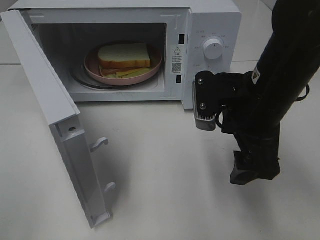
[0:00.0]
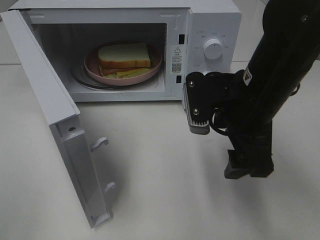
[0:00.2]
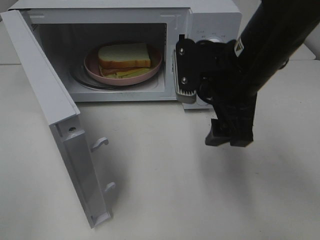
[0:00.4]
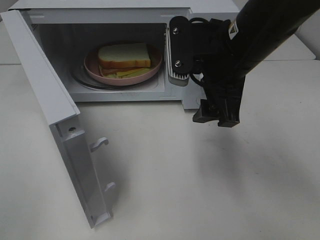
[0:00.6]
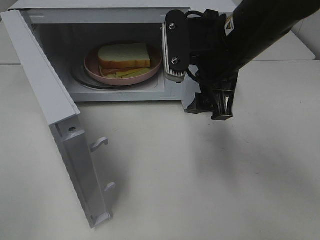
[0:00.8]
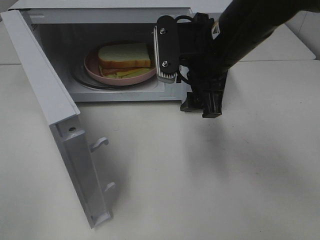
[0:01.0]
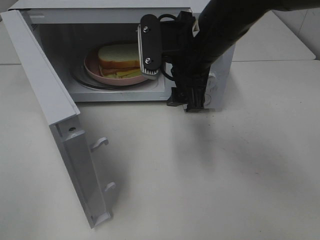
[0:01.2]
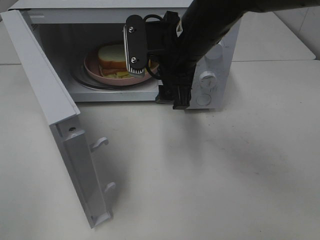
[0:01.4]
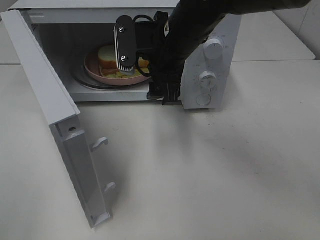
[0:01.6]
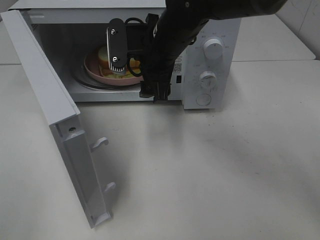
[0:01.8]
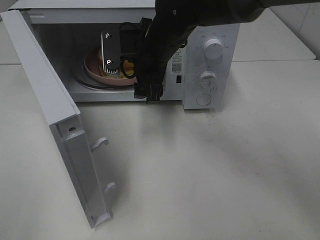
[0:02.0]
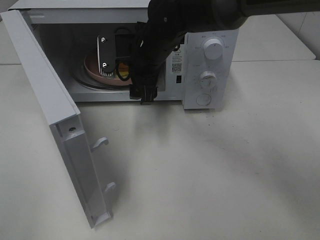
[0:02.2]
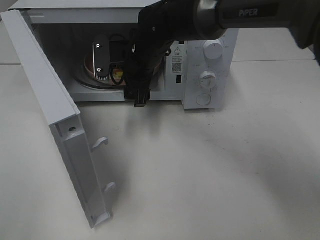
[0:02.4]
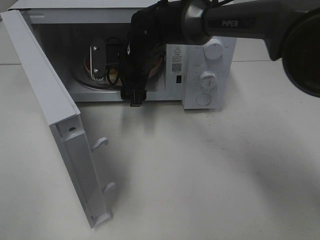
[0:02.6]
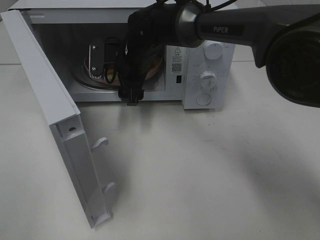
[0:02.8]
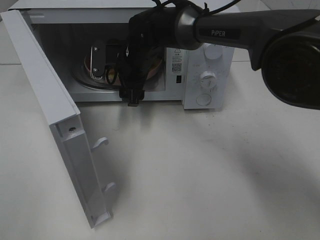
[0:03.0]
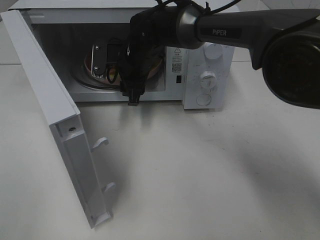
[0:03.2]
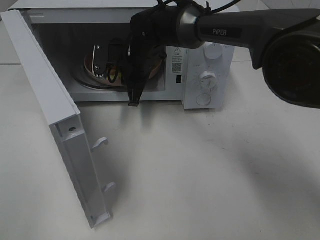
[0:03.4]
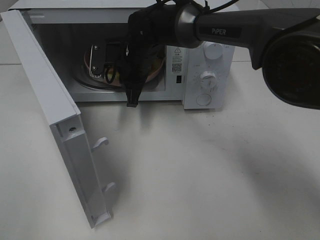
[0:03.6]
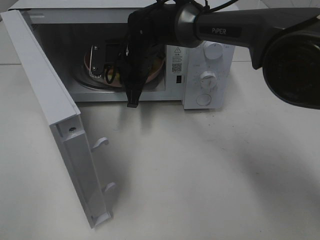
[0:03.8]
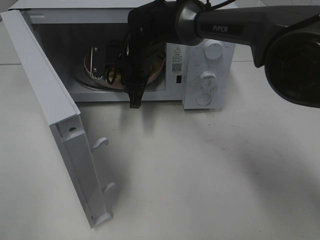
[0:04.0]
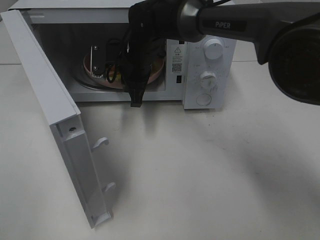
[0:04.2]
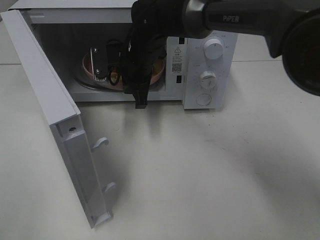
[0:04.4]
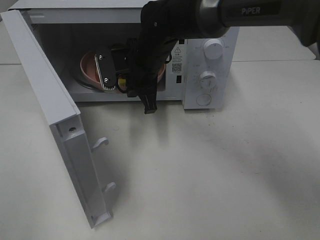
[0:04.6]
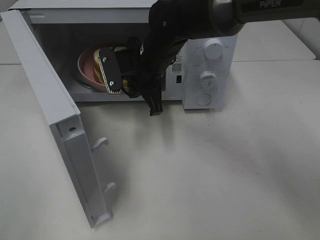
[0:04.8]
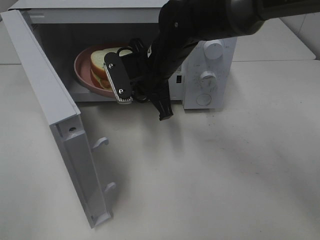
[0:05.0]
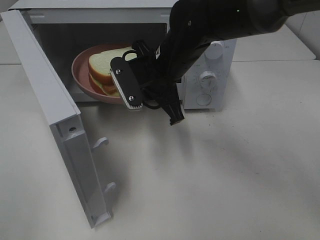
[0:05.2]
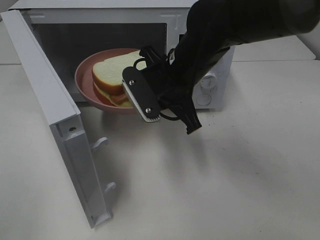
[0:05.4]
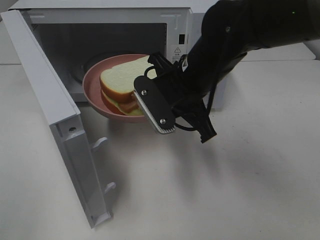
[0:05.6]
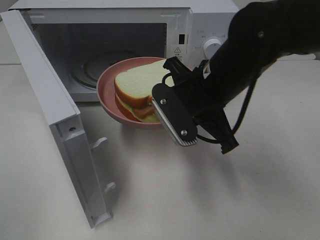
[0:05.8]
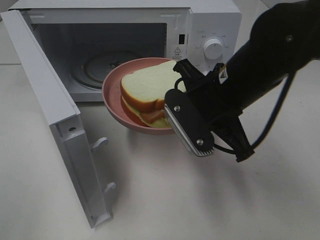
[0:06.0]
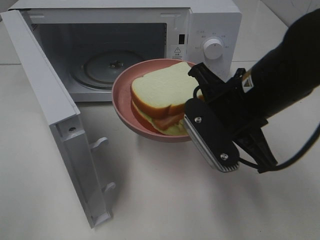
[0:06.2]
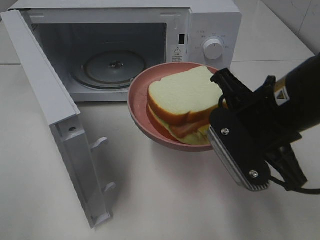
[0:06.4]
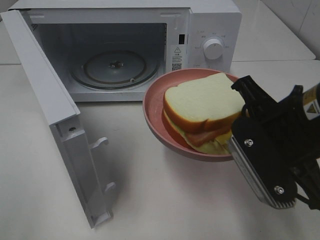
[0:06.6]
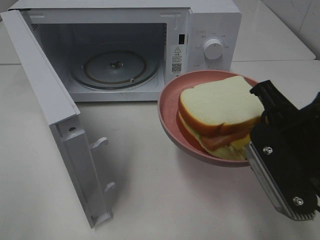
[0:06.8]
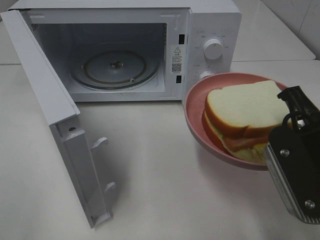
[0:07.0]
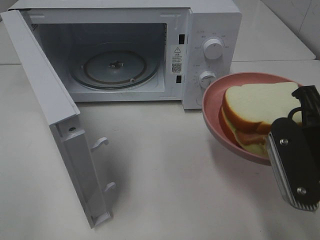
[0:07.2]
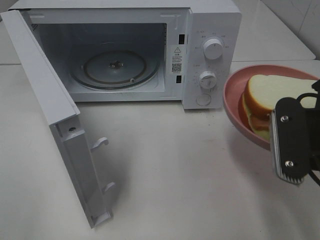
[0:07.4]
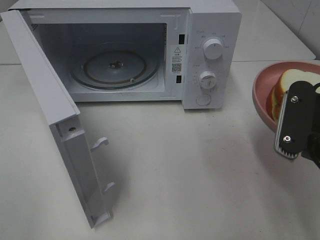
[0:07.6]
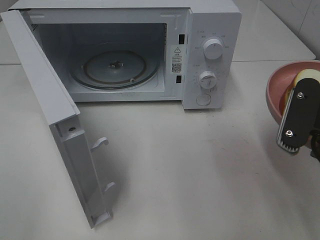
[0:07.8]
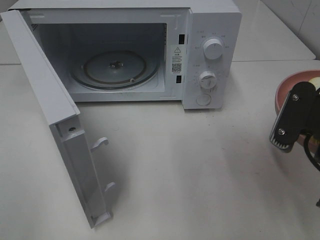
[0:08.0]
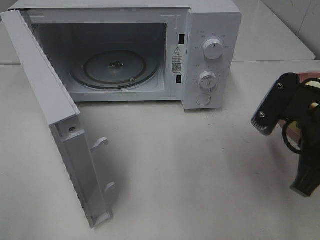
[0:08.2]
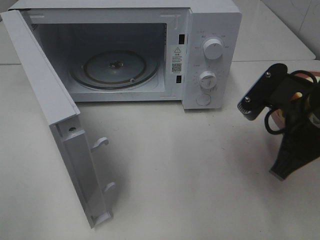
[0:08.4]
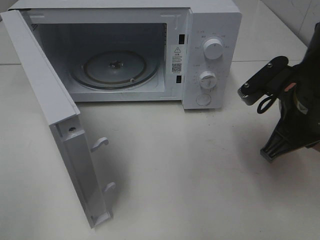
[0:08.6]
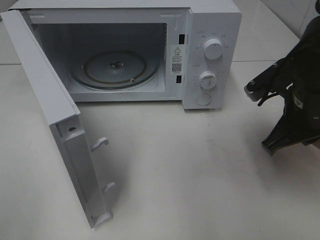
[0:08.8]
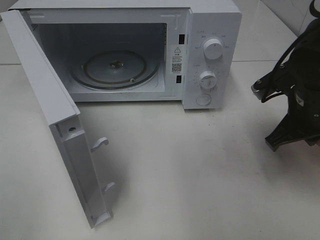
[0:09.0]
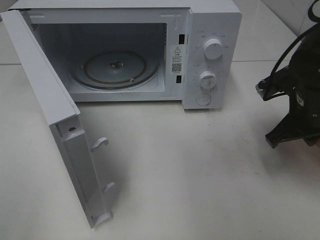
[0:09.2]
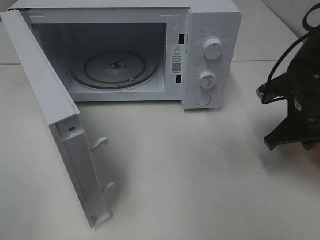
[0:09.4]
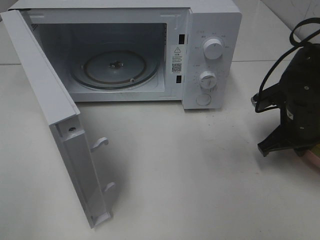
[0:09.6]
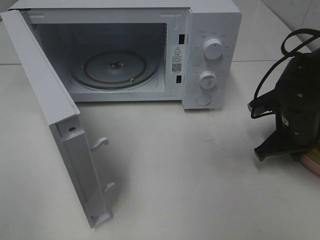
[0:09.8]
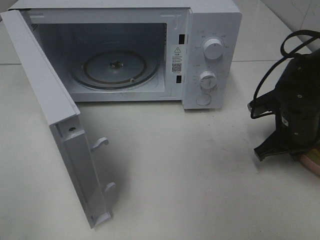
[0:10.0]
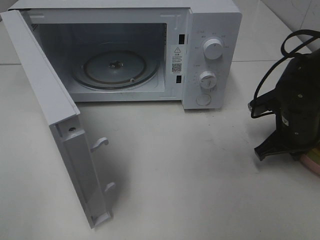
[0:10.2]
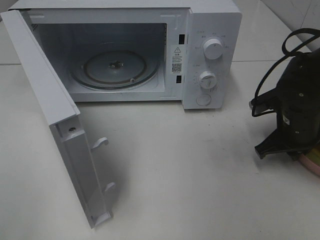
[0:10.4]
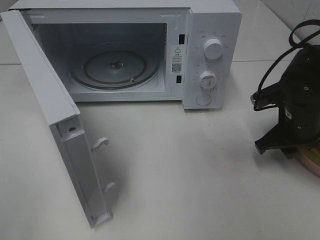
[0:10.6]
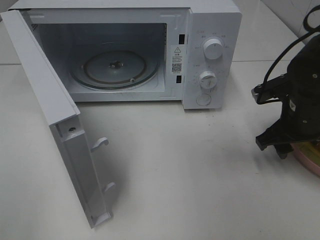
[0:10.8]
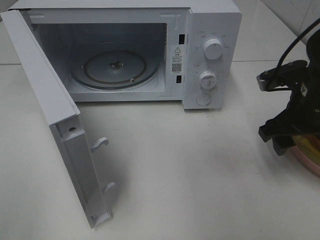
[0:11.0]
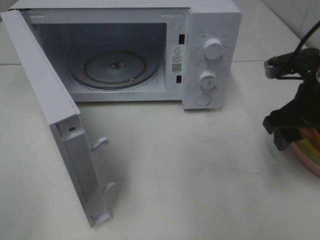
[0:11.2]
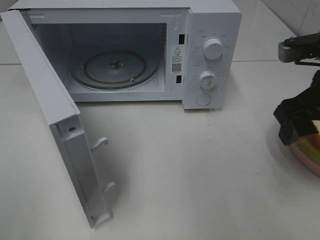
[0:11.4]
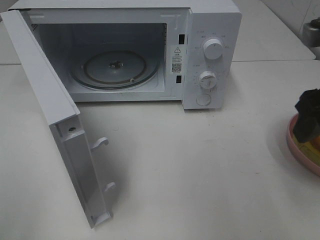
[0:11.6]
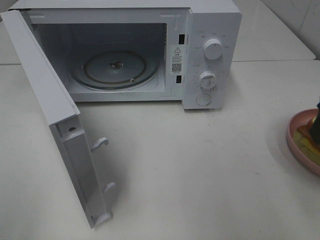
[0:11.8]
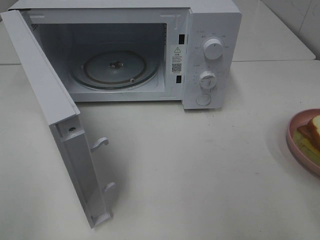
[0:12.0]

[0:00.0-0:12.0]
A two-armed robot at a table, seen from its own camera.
Task of the whole recording: Heat Sandwich.
Step, 0:00.0 to 0:03.8: Right hand: grab the plate with the sandwich.
Step, 0:04.0 to 0:11.4: Right hand: place the plate on the table.
0:00.0 to 0:01.6: The right gripper moves to the left and forward, approximately 15 cm.
0:01.6 to 0:03.0: The right gripper travels forward, downward and to the left by roughly 15 cm.
0:03.0 to 0:04.4: The right gripper closes its fingers.
0:04.4 to 0:06.0: The right gripper heads backward and to the right, covering about 20 cm.
0:06.0 to 0:07.6: The right gripper is displaced to the right and backward by some 15 cm.
0:07.6 to 0:09.0: The right gripper travels forward and downward by approximately 10 cm.
0:09.0 to 0:10.4: The right gripper goes some 5 cm downward.
0:10.4 to 0:12.0: The right gripper heads upward and backward, covering roughly 25 cm, and opens up.

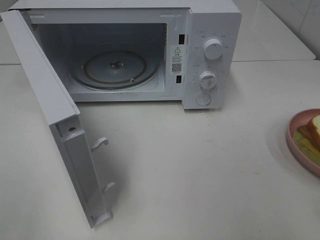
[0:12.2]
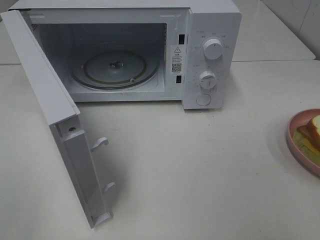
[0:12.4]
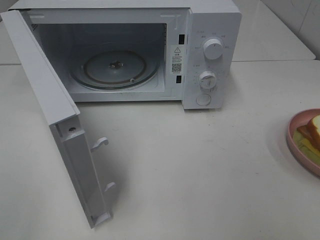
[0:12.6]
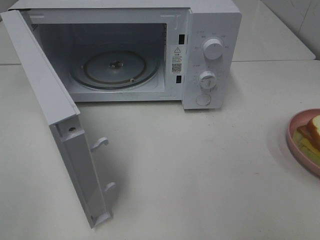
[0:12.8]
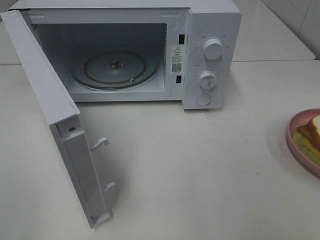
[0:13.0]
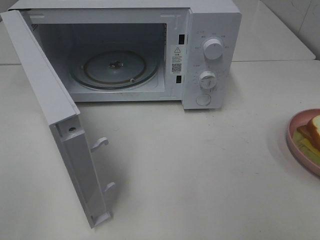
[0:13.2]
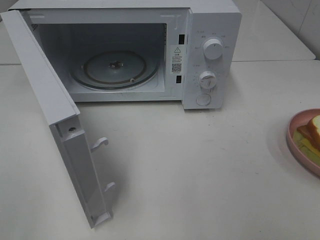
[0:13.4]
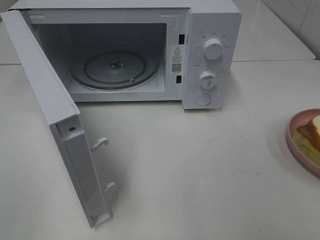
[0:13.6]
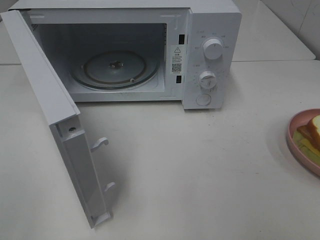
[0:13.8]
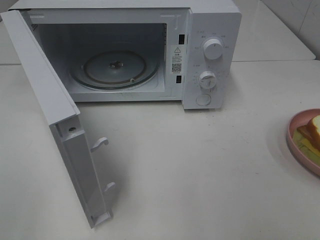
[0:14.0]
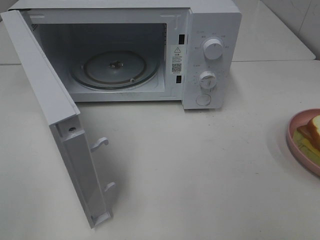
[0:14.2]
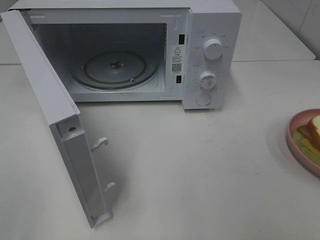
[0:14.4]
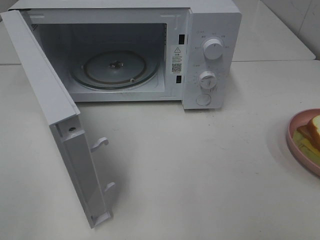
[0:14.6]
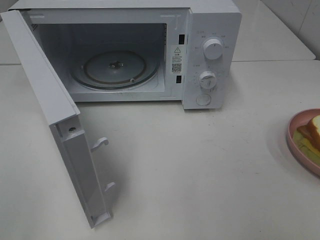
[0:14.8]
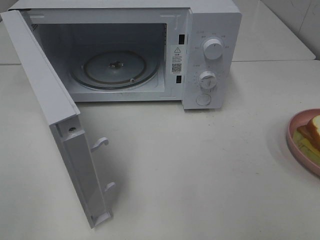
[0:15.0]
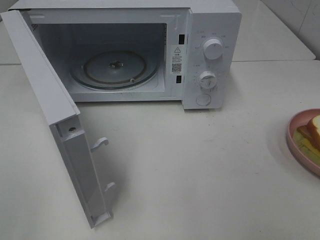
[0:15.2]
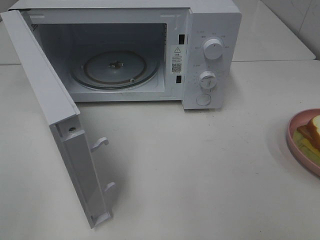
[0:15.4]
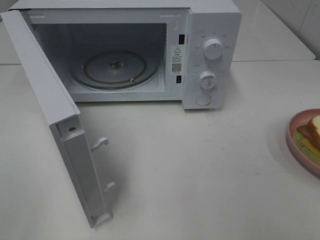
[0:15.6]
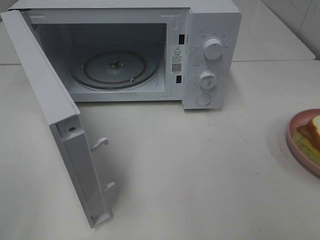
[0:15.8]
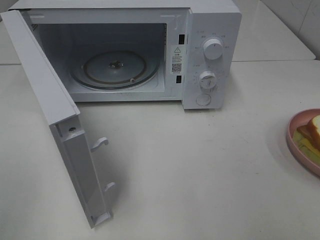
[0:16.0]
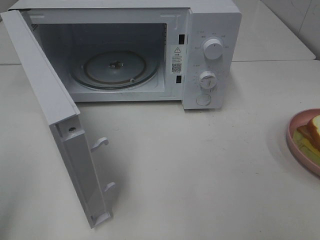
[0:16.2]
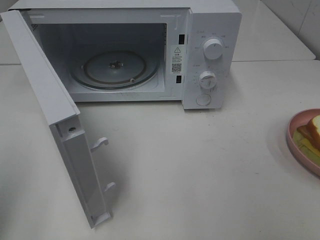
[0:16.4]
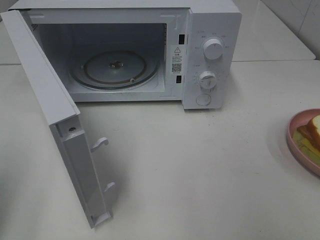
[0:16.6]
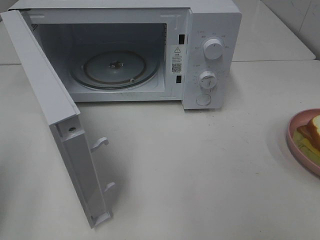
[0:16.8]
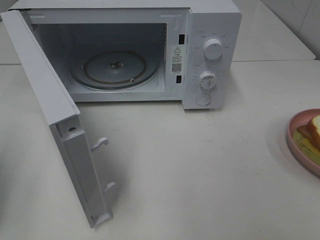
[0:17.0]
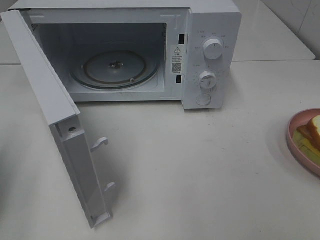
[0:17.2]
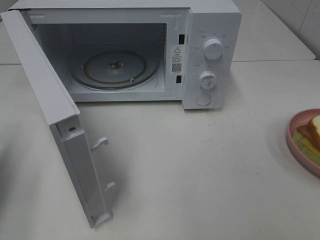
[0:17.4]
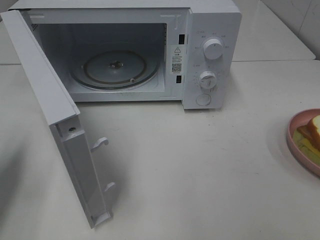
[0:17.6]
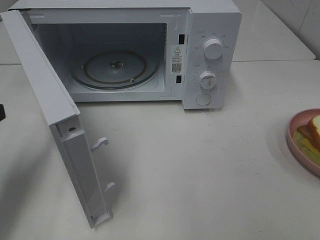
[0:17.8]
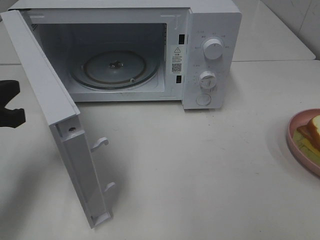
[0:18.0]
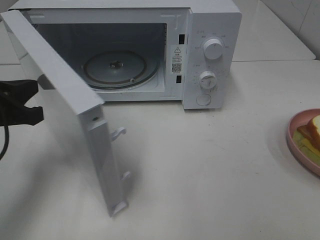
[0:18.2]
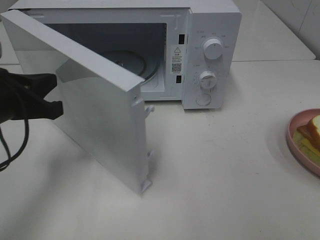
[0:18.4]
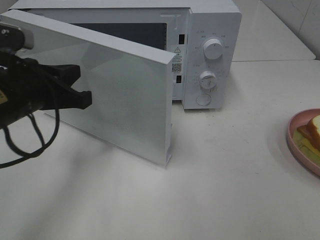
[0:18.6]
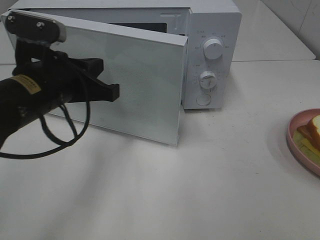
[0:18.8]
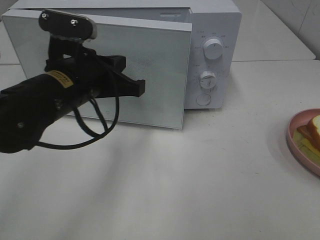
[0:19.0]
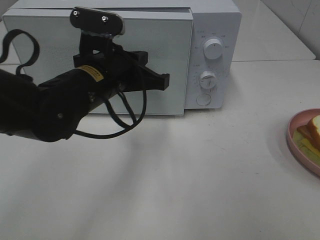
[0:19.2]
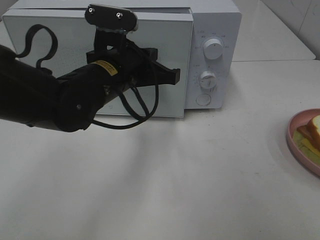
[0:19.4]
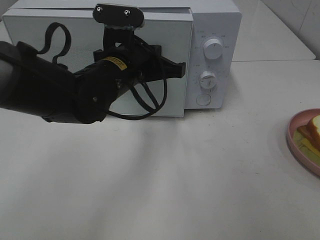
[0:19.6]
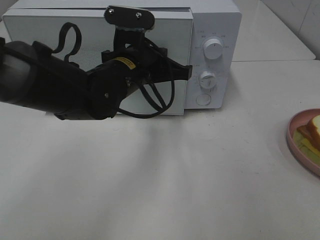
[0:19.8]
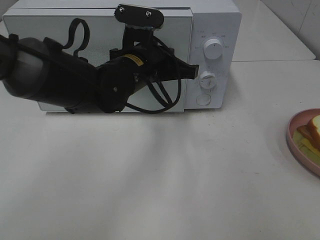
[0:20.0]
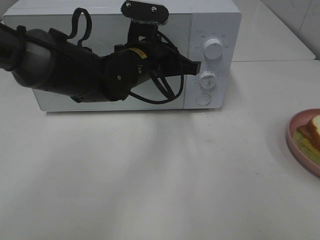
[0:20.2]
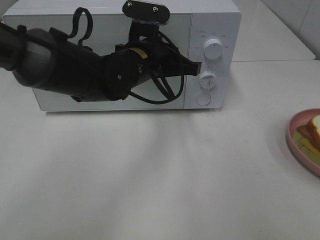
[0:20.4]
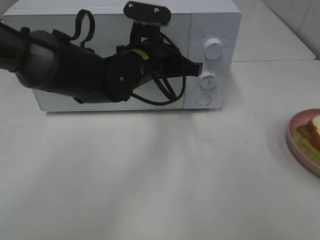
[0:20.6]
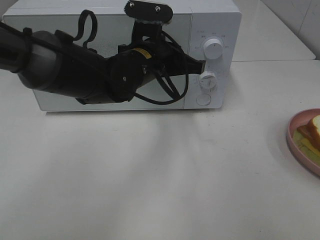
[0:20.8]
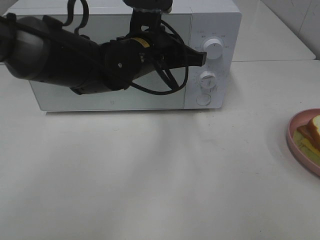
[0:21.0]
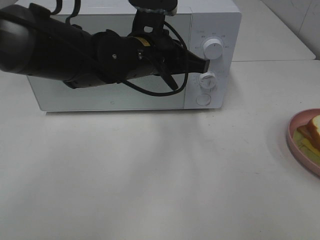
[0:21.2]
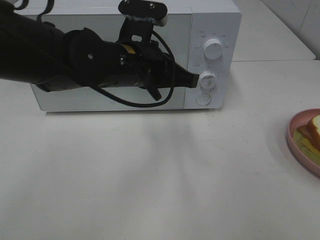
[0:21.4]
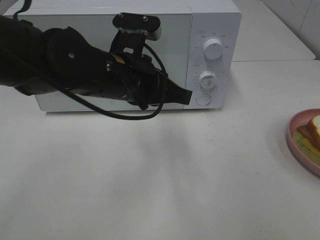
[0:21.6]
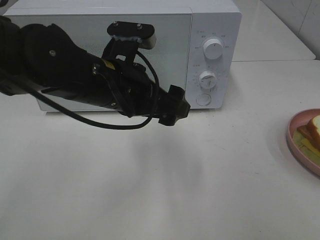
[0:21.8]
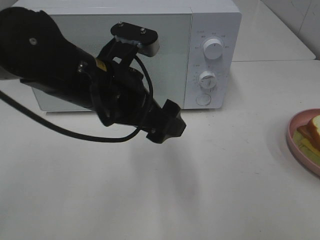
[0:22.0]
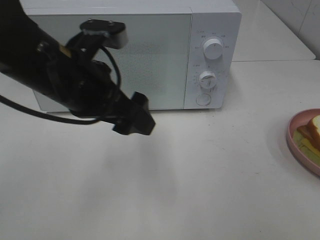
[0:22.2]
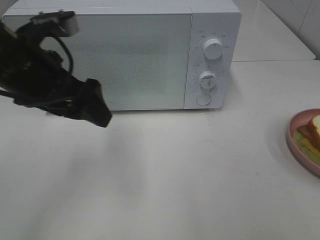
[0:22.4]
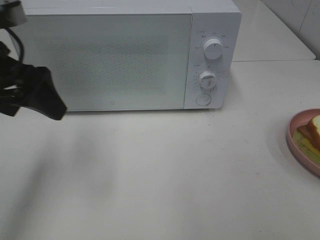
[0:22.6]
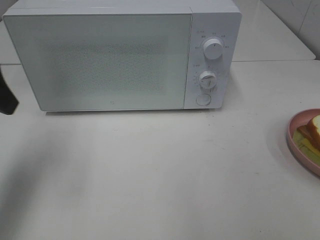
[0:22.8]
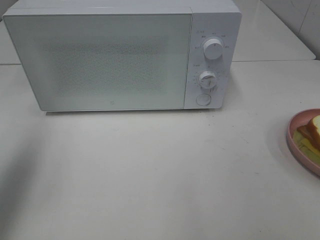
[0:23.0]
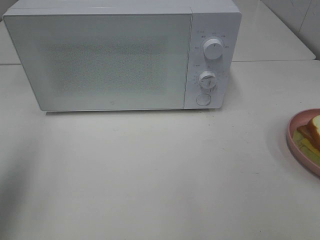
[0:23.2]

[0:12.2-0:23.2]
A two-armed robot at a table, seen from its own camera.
Task of the whole recording: Heat Sandwich.
Step, 0:12.2 to 0:21.6: Left hand: close the microwave door.
0:13.8 to 0:15.4: Both grippers stay about where they are.
0:17.0 to 0:18.4: The left gripper moves to the right and forward, some 15 cm.
0:18.4 to 0:20.0: The left gripper is displaced to the right and forward by some 20 cm.
0:20.0 to 0:21.6: The left gripper is displaced backward by roughly 5 cm.
0:21.6 to 0:23.2: The left gripper shifts approximately 30 cm to the left and upward, and opens its fingers.
